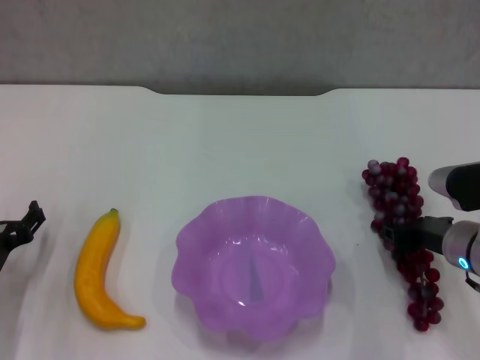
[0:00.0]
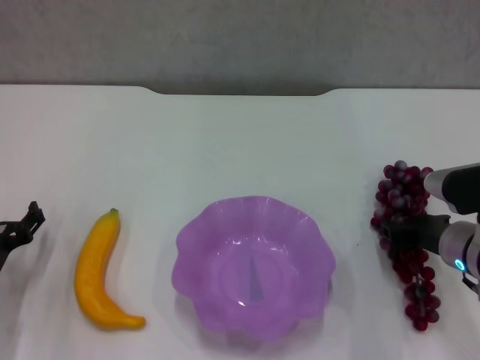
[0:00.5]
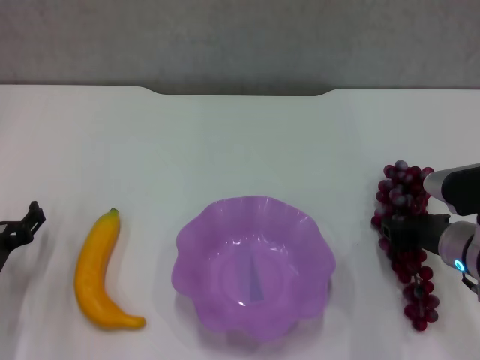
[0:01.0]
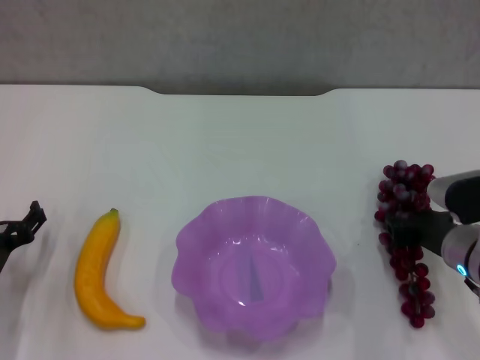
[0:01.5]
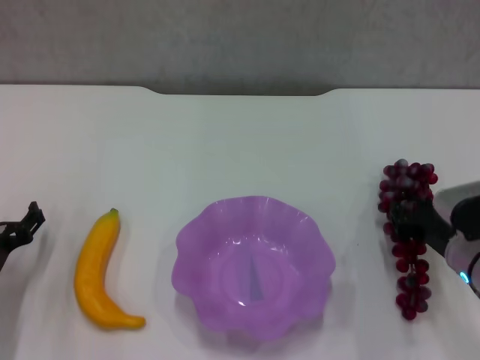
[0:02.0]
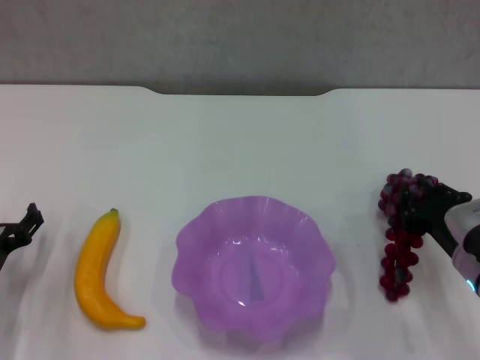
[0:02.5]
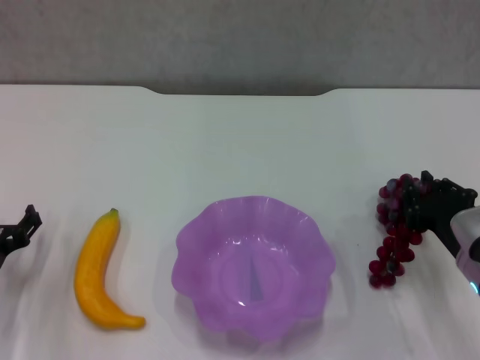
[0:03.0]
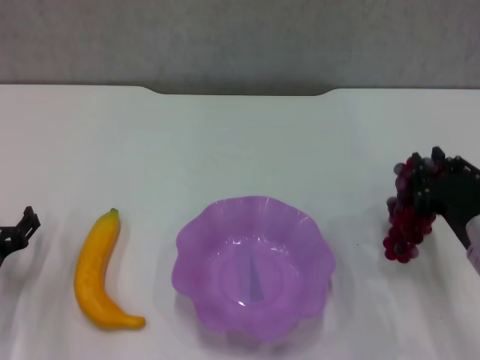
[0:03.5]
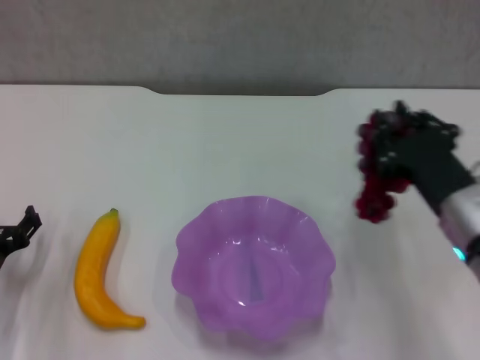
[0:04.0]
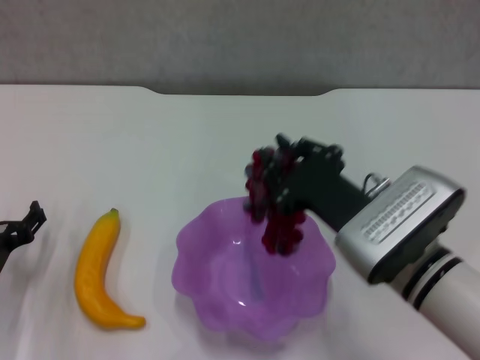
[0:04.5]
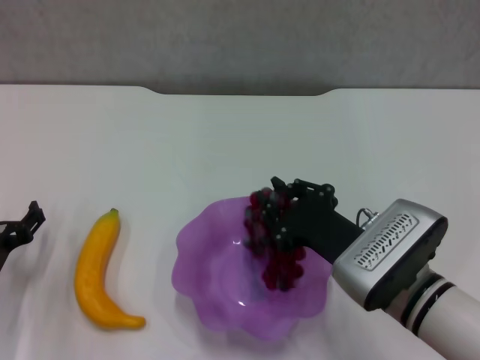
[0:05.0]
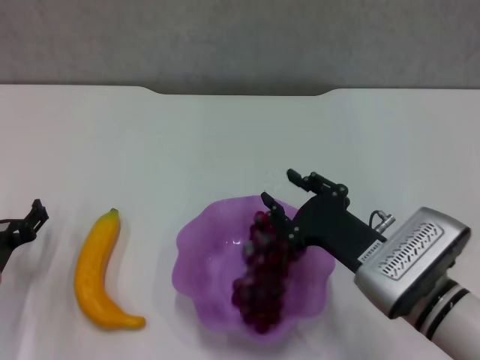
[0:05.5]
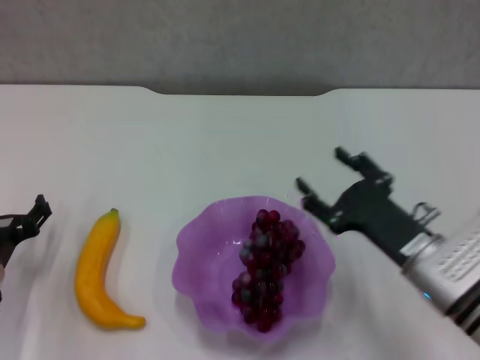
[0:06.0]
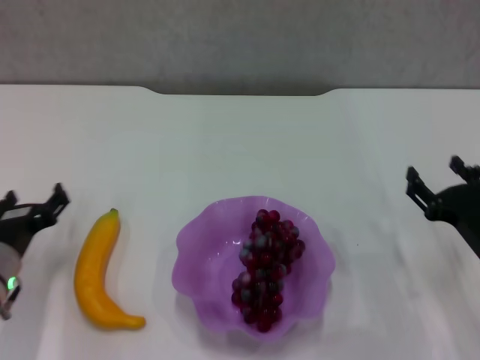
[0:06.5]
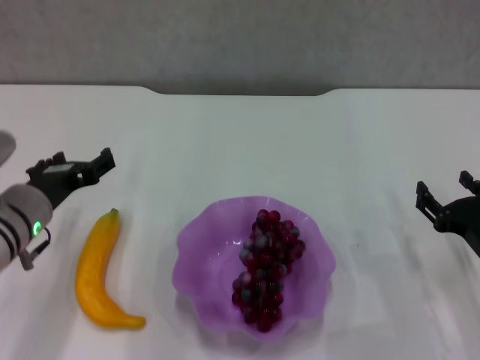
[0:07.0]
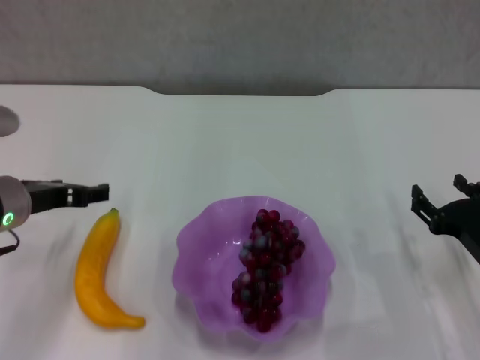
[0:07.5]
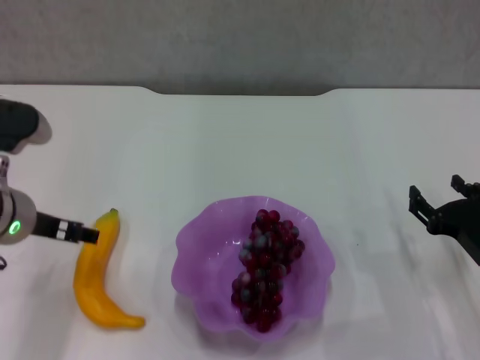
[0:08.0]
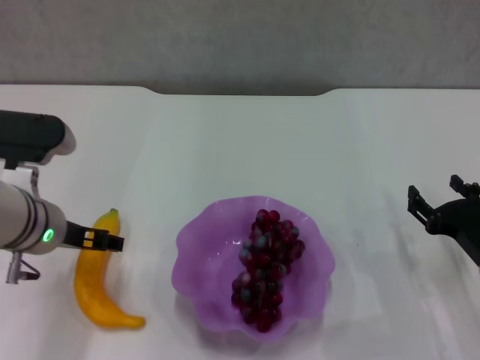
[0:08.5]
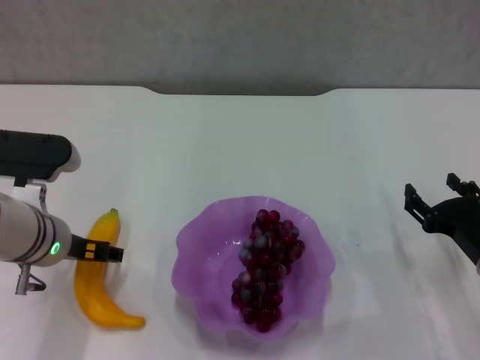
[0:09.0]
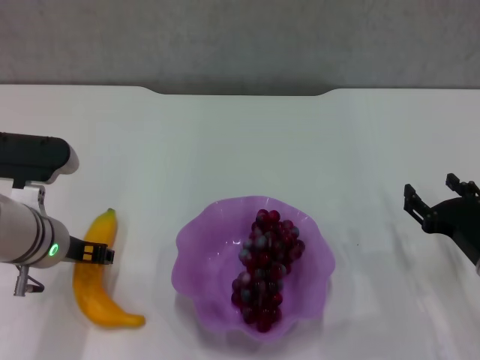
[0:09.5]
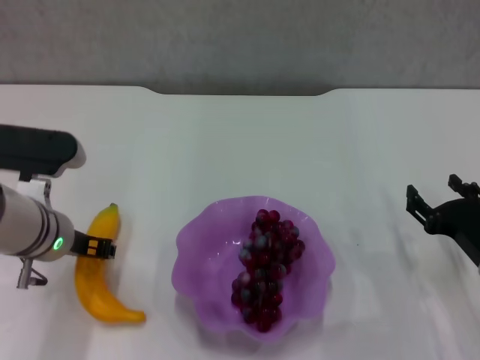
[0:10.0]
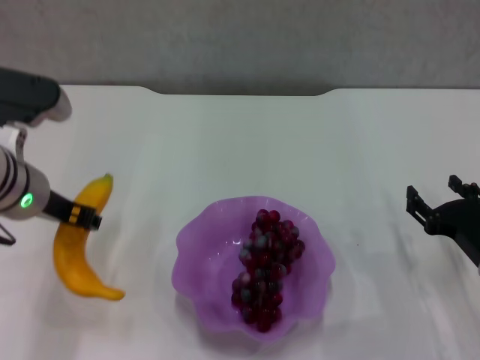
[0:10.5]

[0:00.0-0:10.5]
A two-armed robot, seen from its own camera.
Step, 0:00.0 to 0:05.5: Place the grape in the purple plate with right gripper.
Step, 0:06.5 to 0:09.5: Grasp the banana with left gripper.
0:00.0 to 0:02.0: The grippers move only a little.
0:02.0 to 0:04.0: The right gripper heads upward, covering some 5 cm.
0:04.0 to 0:06.5: The right gripper shifts about 10 cm downward and to the right, and opens its fingers.
0:06.5 to 0:08.5: The left gripper heads upward and to the right, covering approximately 10 cm.
0:08.5 to 0:10.5: The left gripper closes.

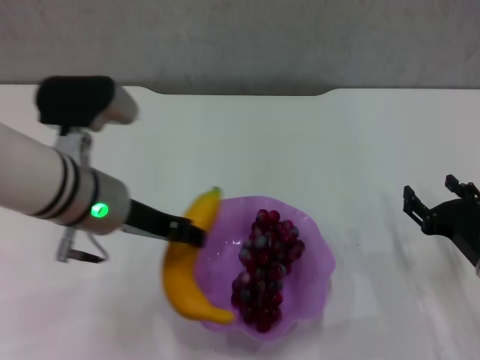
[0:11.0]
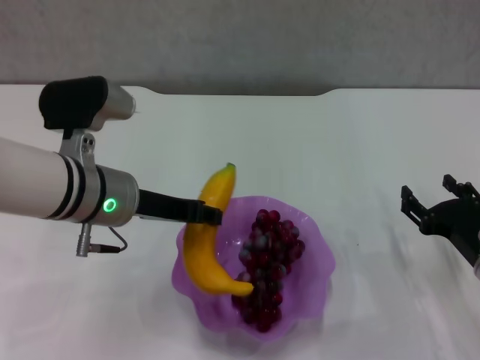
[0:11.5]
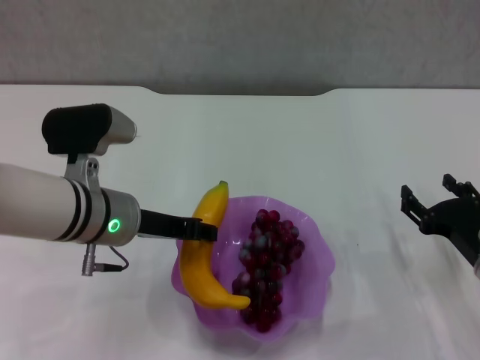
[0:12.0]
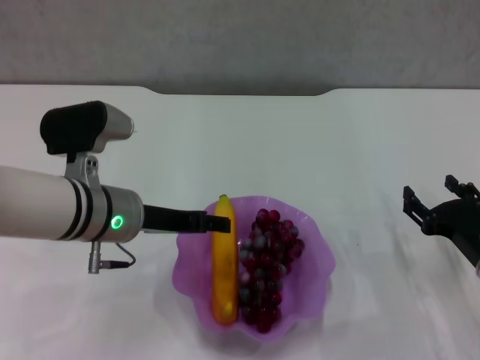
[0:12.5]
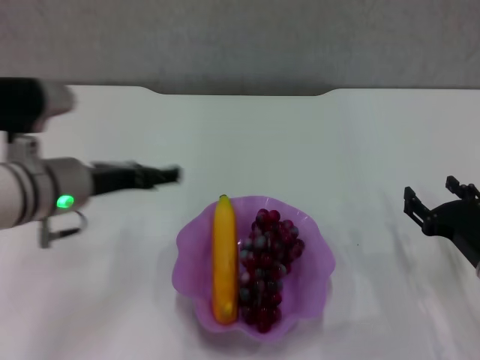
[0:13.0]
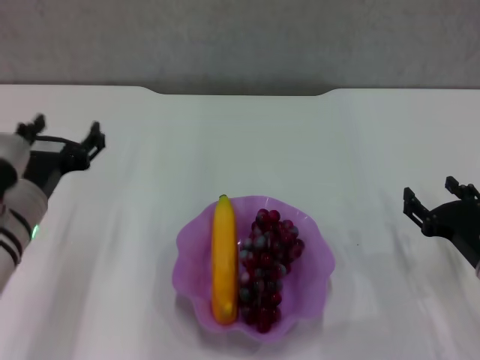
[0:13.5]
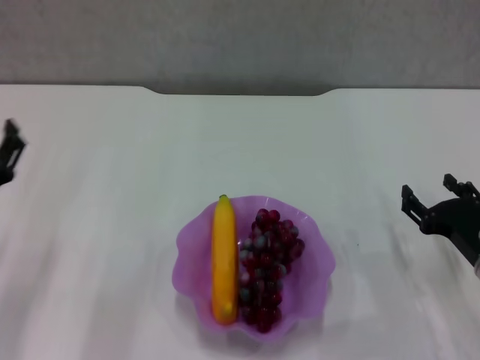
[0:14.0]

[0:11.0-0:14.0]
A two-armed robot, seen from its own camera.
Step, 0:11.0 to 0:12.5: Place the banana in the purple plate with left gripper.
0:11.0 to 0:12.5: There are only small adjustments of the grippers.
0:12.5 to 0:14.0: The left gripper goes roughly 15 cm to the left, backward and downward, and opens up.

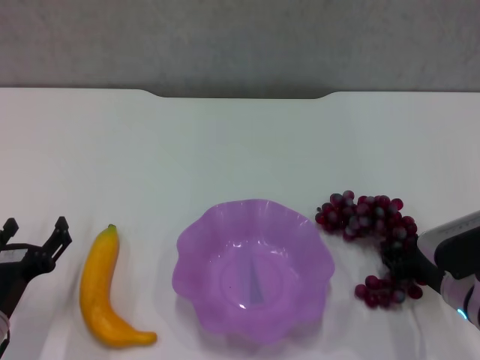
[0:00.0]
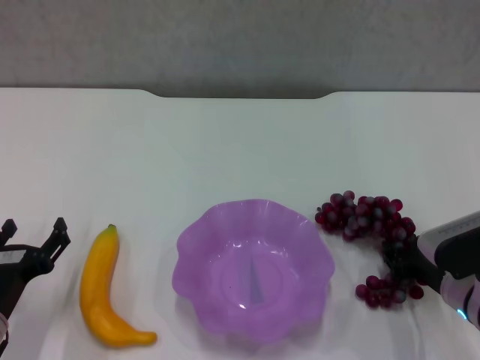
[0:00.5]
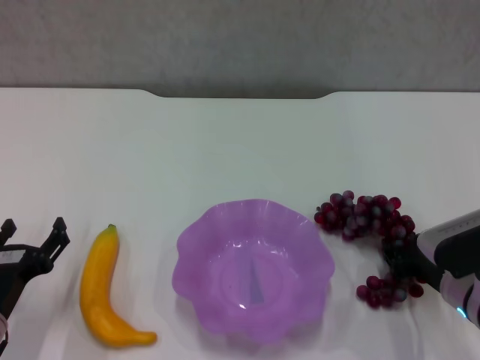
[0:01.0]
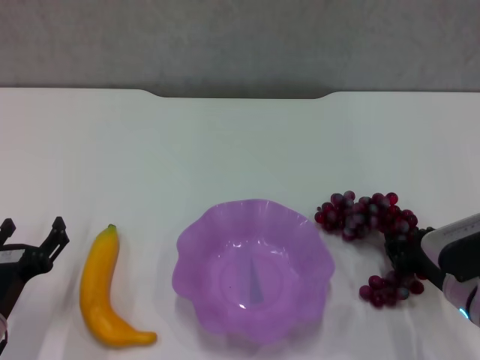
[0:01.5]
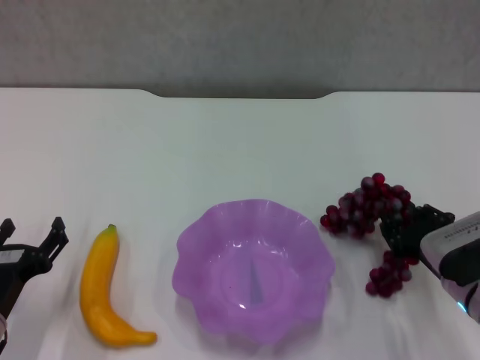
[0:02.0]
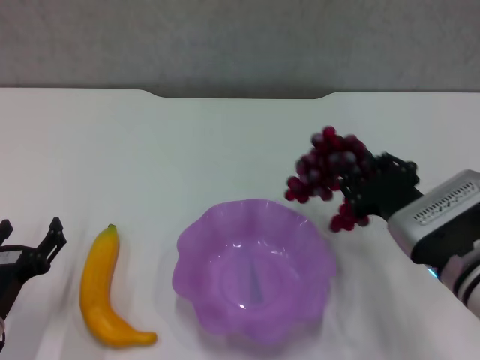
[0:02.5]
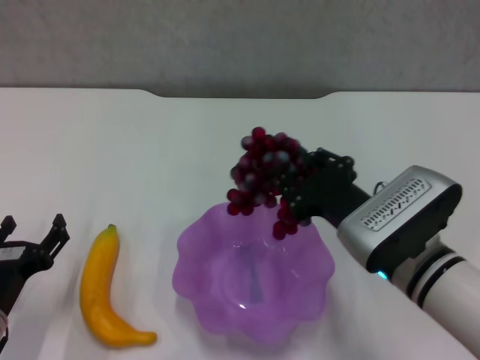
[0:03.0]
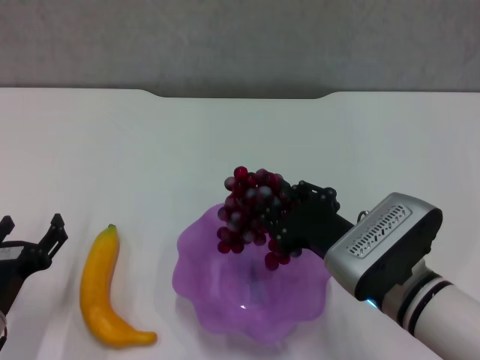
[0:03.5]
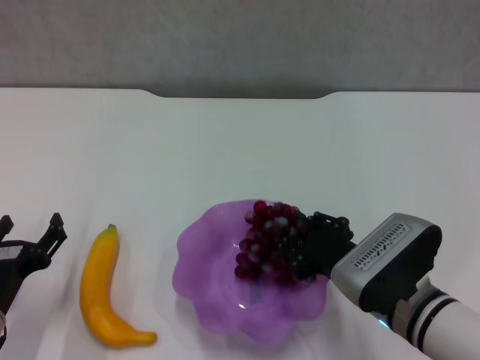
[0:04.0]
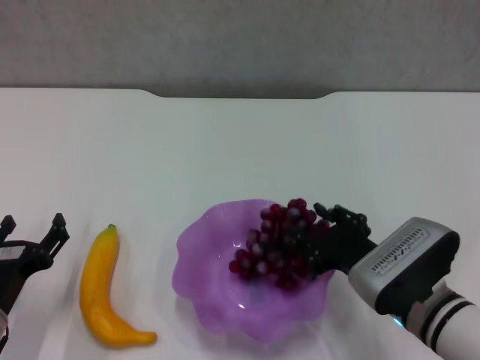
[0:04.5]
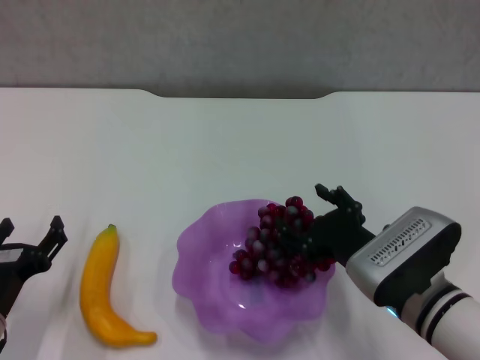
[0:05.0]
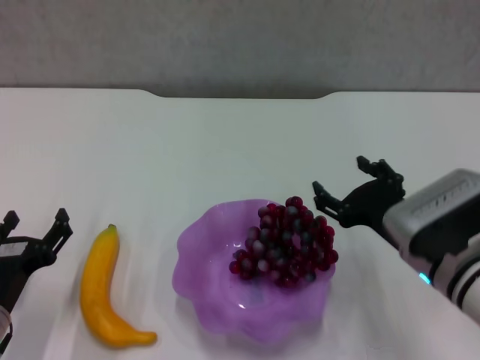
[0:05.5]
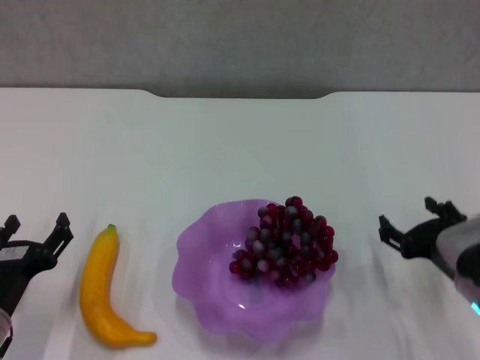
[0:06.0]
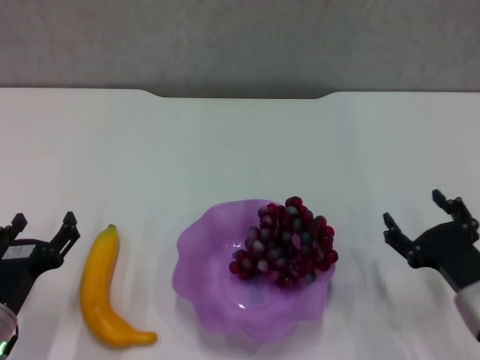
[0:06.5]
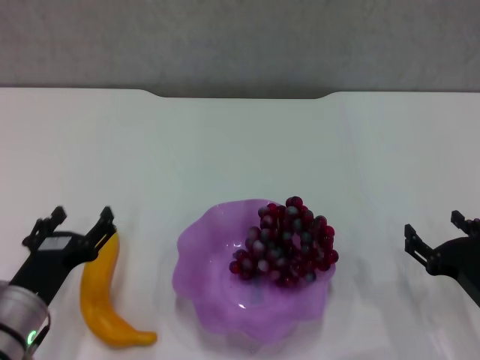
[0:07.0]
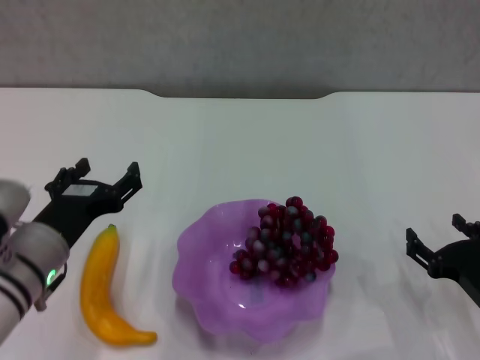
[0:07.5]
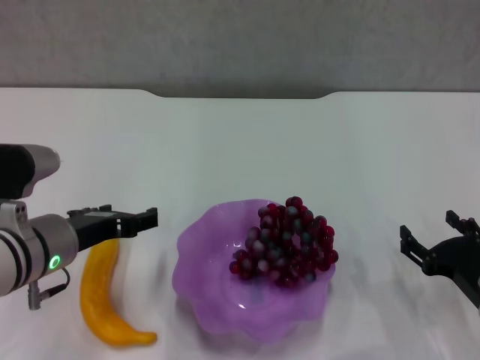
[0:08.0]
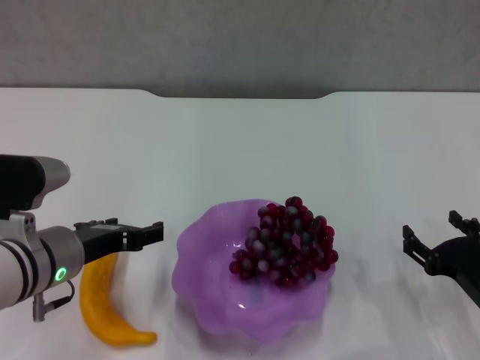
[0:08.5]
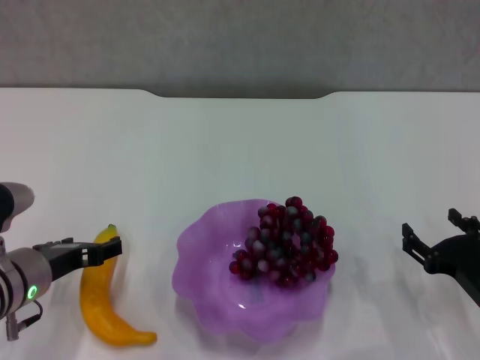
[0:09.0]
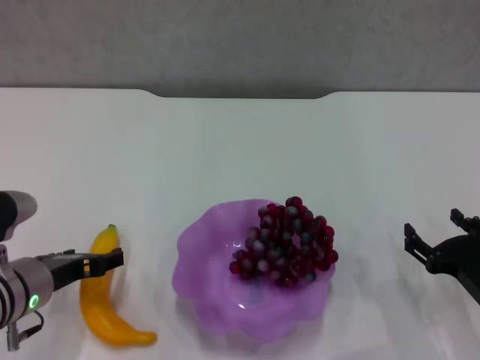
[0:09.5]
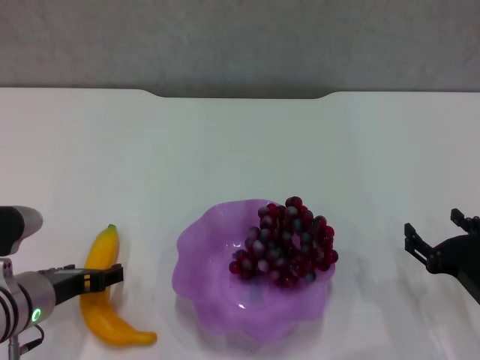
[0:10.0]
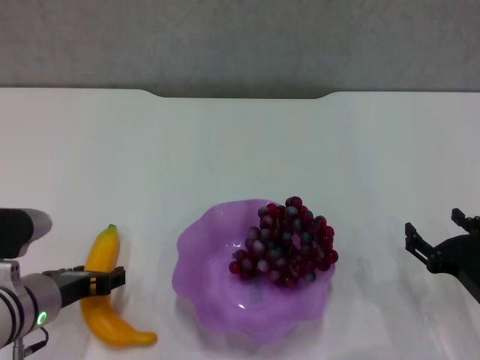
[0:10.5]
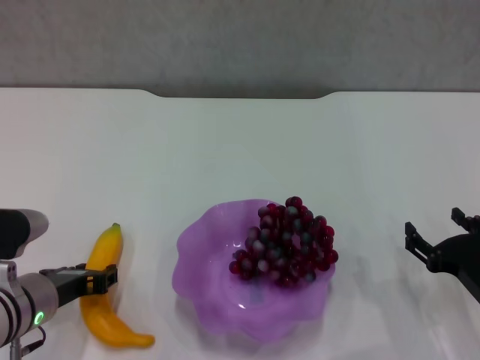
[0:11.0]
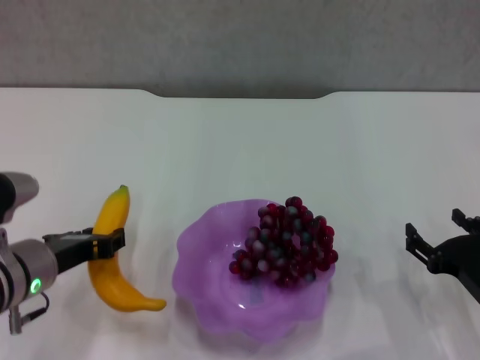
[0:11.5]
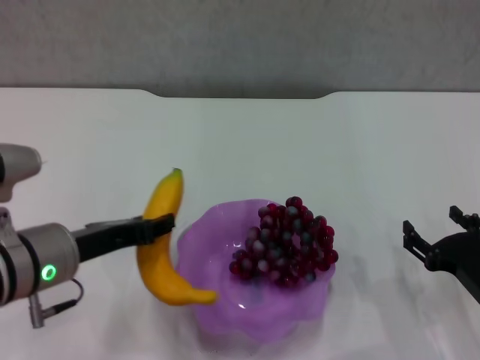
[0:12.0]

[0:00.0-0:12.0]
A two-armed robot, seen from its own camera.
Step, 0:00.5 to 0:05.0: Place the grape in the purple plate with right gripper.
Step, 0:06.0 to 0:10.5: Grasp the banana with left gripper.
0:00.0 to 0:02.0: The grippers make only small movements.
0:02.0 to 0:04.0: The right gripper shifts about 10 cm to the left.
0:04.0 to 0:06.0: The right gripper moves to the right, approximately 10 cm, and opens its fingers.
0:06.0 to 0:08.0: The left gripper is displaced upward, forward and to the right by some 15 cm. The right gripper shifts by some 5 cm.
0:08.0 to 0:10.0: The left gripper goes roughly 5 cm downward.
0:10.0 to 0:12.0: The left gripper heads upward, covering some 5 cm, and closes its fingers.
